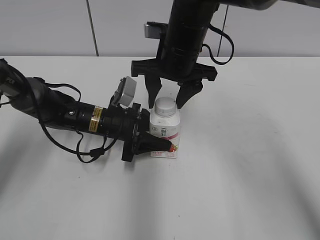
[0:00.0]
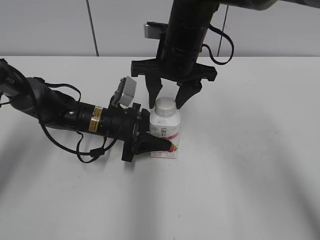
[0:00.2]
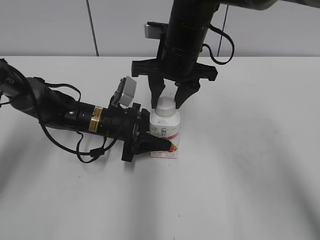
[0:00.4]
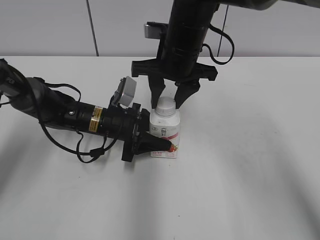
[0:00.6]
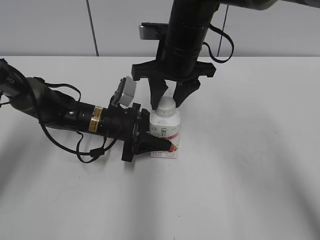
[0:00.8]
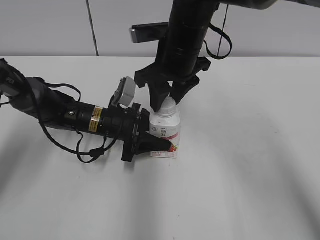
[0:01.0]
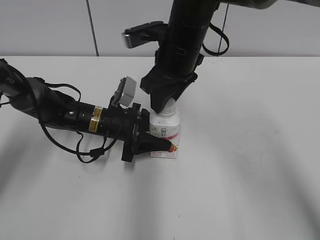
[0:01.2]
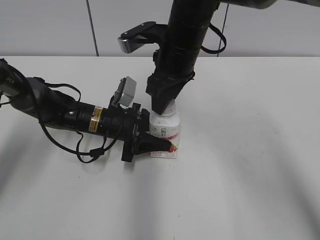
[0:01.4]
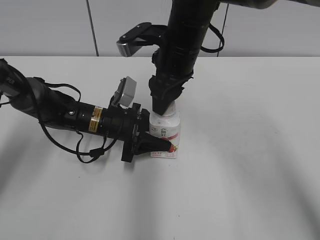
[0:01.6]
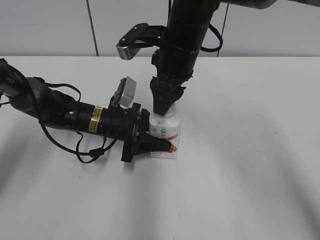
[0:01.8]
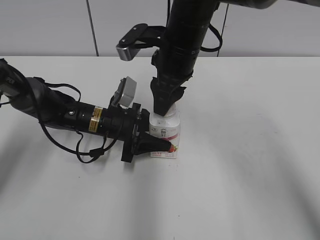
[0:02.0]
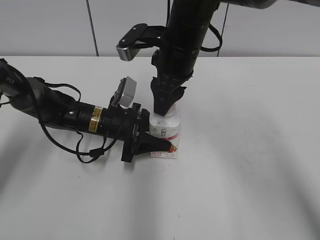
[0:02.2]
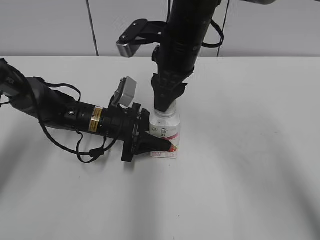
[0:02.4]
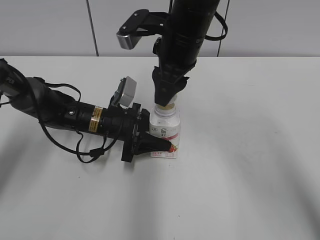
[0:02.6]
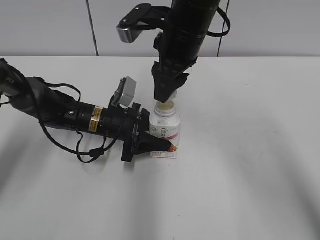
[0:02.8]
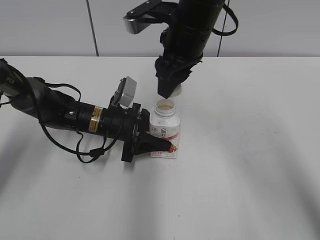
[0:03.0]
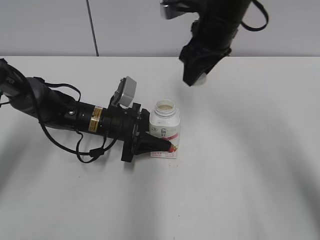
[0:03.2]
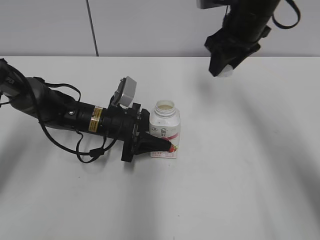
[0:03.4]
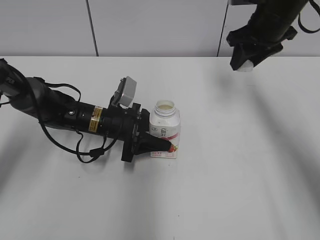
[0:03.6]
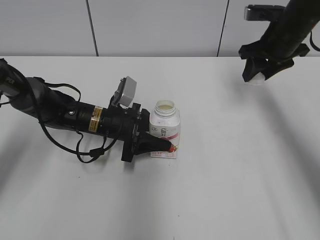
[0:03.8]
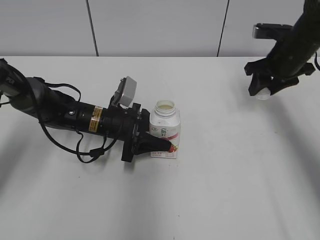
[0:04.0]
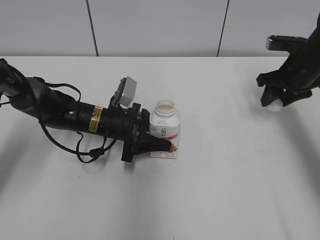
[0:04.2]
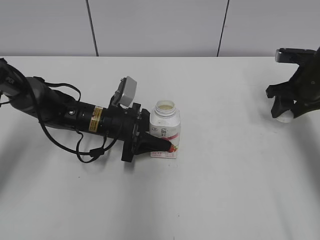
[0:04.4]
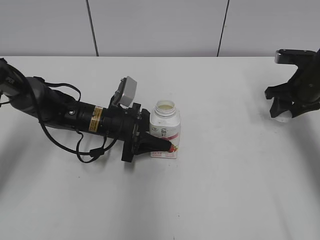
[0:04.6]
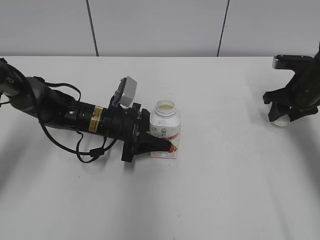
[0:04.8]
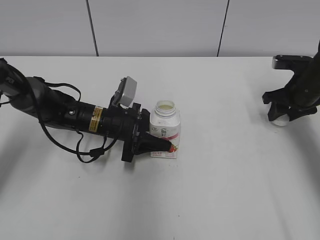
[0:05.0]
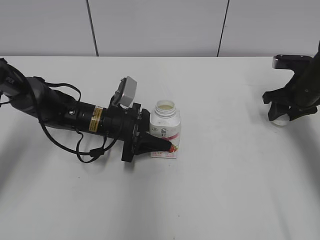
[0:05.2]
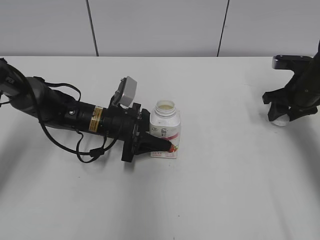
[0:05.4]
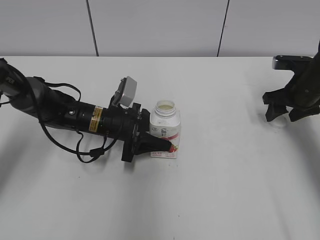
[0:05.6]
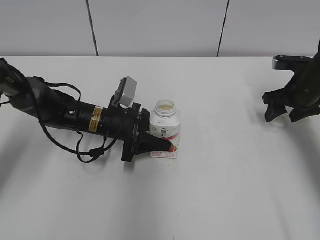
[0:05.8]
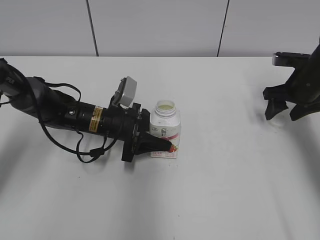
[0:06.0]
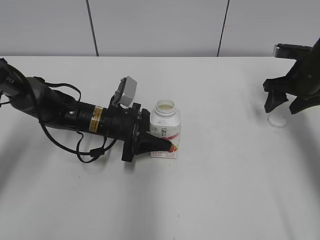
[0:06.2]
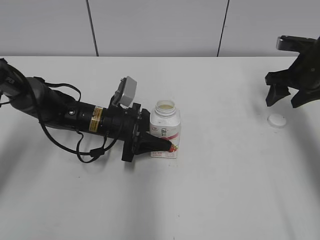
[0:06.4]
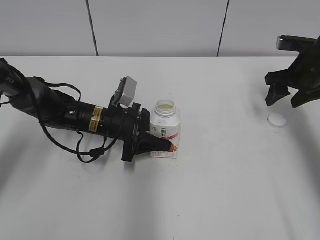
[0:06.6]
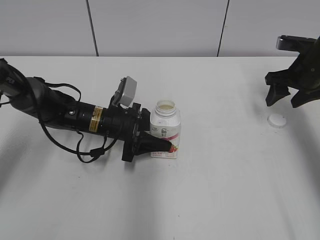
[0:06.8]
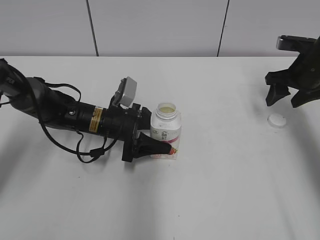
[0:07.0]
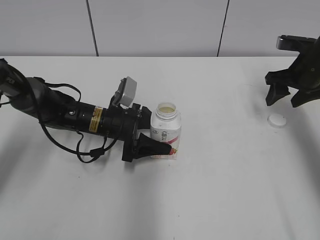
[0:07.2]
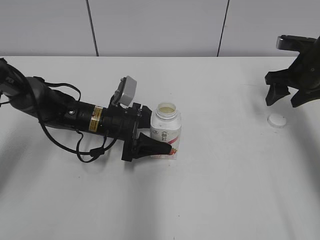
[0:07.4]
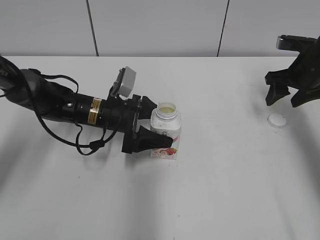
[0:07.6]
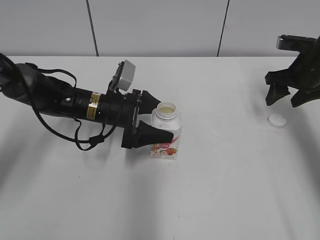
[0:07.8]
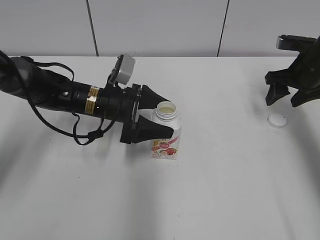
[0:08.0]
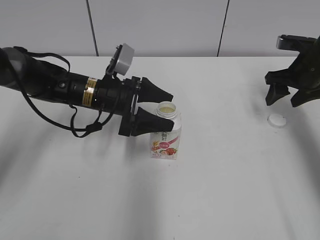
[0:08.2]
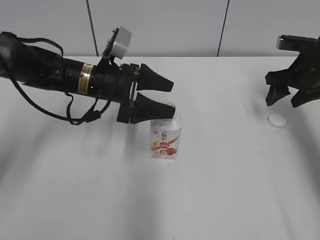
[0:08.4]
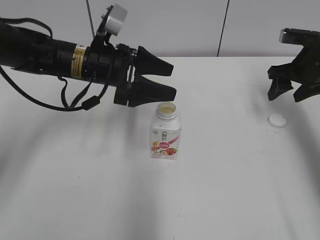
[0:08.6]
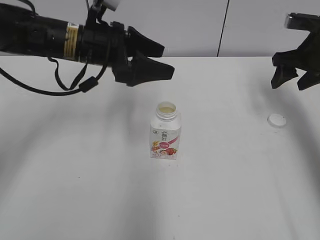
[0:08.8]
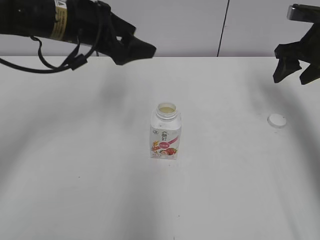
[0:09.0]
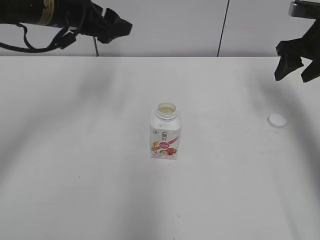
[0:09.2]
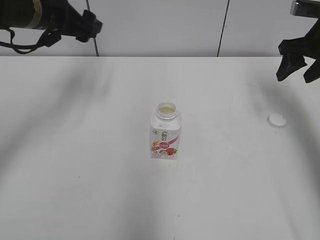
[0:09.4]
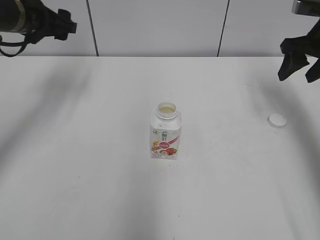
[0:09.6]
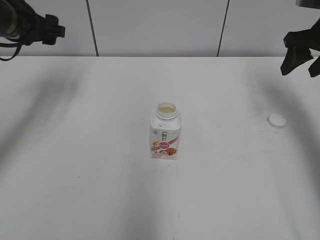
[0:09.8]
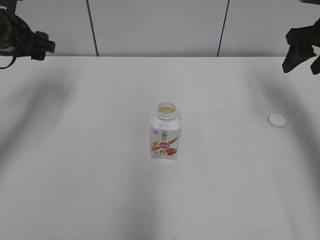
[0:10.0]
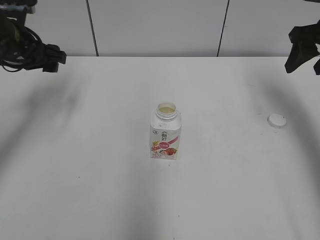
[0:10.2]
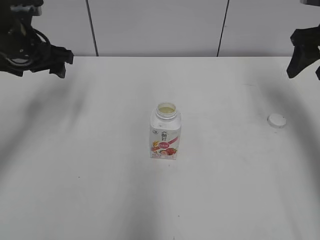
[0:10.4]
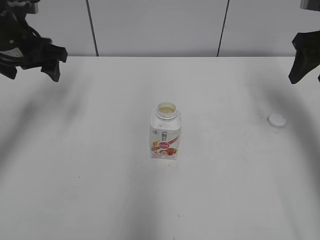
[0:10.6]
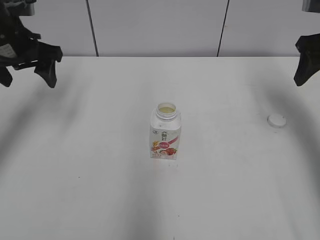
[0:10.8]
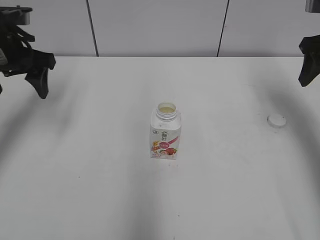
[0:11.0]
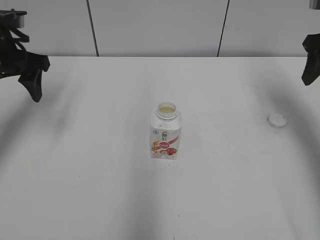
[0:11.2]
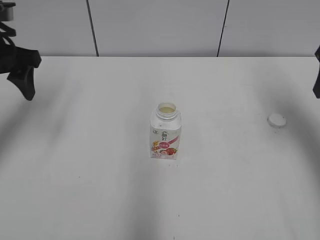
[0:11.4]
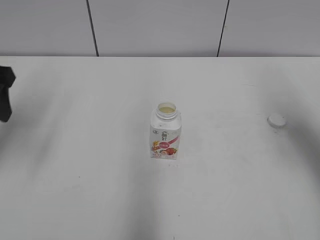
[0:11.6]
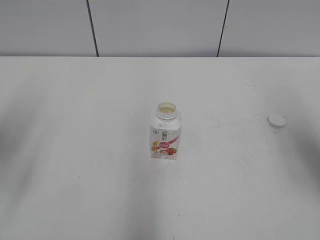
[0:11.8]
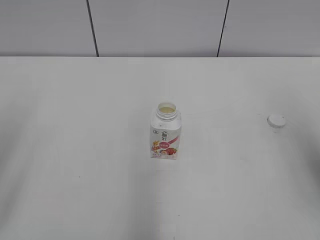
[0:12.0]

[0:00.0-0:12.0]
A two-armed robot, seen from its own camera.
Step, 0:03.0 to 0:05.8: Place the bottle cap on the right.
0:00.0 to 0:01.6: The right gripper closes its fingers.
0:01.6 to 0:03.0: The grippers stay close to where they were, moving slightly.
0:03.0 to 0:04.4: The right gripper shifts some 25 cm to the right and downward.
0:04.4 to 0:06.0: The right gripper opens.
0:06.0 to 0:07.6: The left gripper opens its fingers.
0:07.6 to 0:09.0: The left gripper goes about 20 cm upward, while the right gripper heads upward, covering about 5 cm.
0:09.0 to 0:10.4: The right gripper moves about 5 cm. The left gripper heads to the left, covering about 10 cm.
0:10.4 to 0:12.0: Both grippers move backward, about 20 cm.

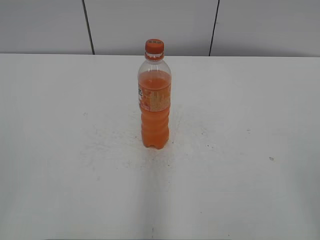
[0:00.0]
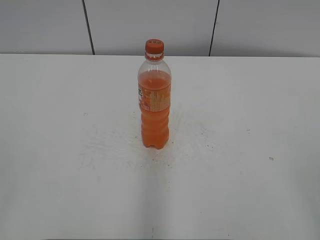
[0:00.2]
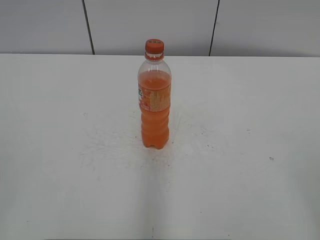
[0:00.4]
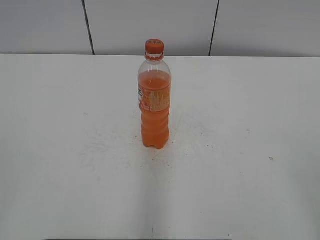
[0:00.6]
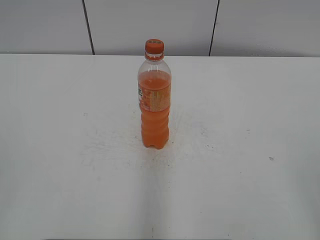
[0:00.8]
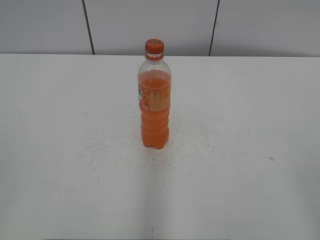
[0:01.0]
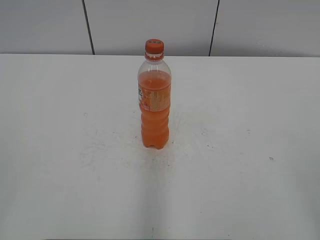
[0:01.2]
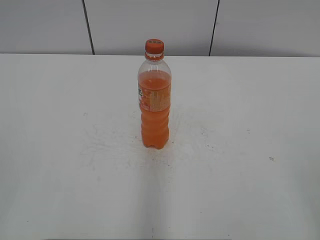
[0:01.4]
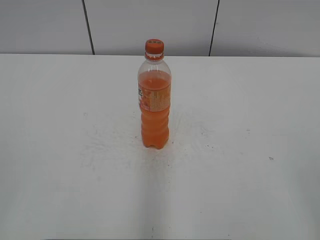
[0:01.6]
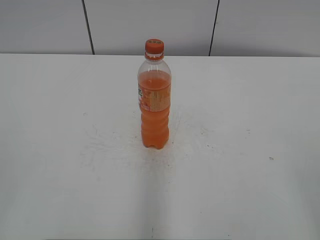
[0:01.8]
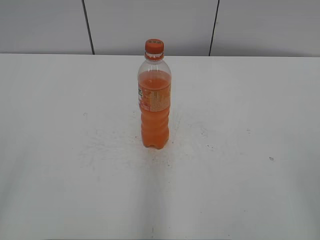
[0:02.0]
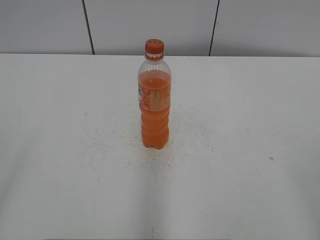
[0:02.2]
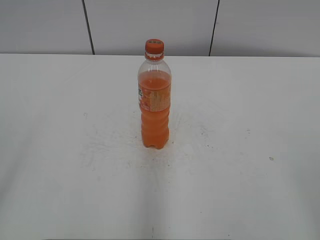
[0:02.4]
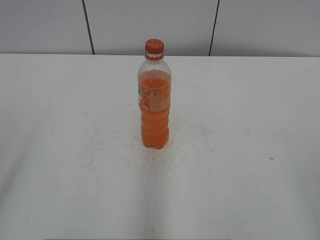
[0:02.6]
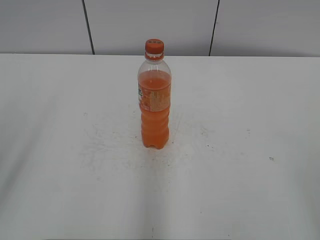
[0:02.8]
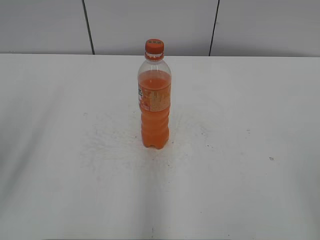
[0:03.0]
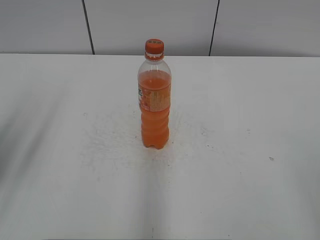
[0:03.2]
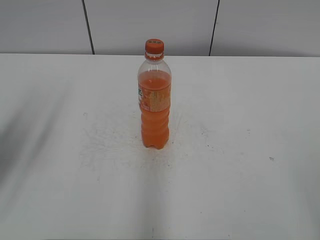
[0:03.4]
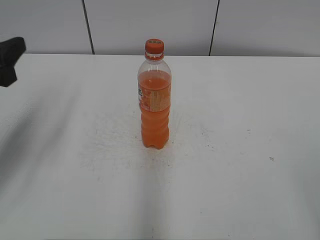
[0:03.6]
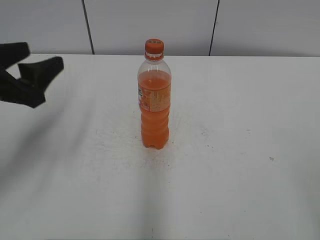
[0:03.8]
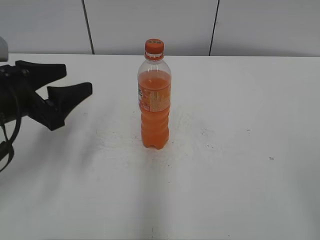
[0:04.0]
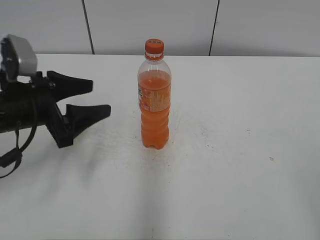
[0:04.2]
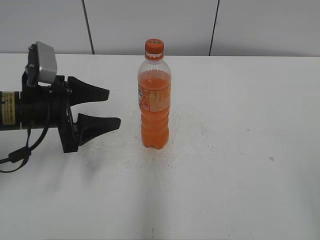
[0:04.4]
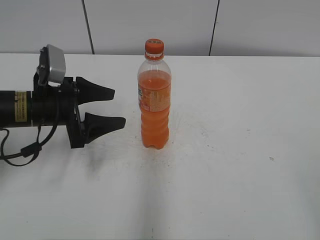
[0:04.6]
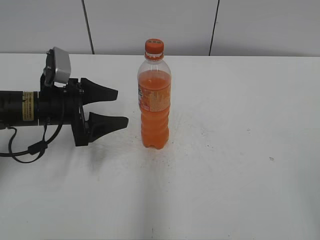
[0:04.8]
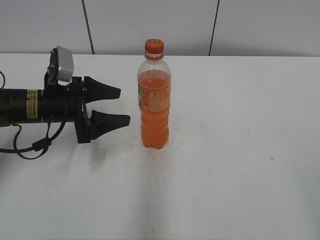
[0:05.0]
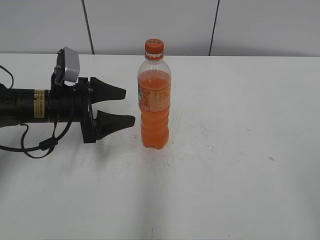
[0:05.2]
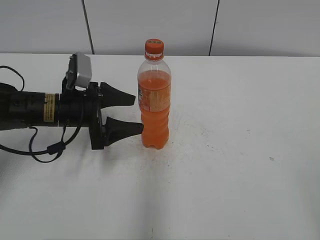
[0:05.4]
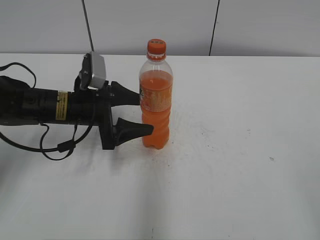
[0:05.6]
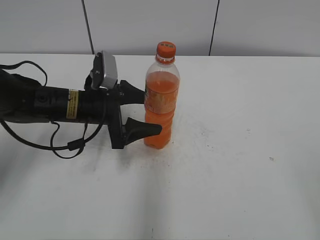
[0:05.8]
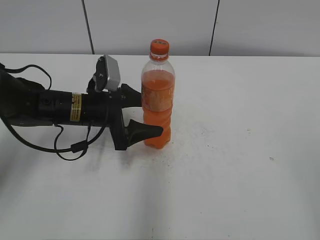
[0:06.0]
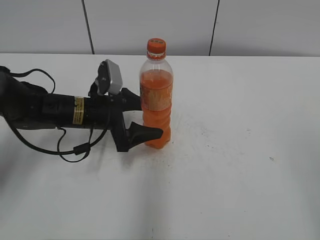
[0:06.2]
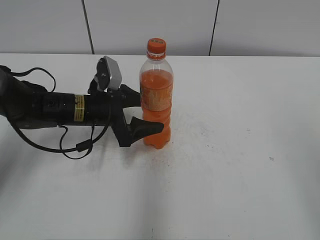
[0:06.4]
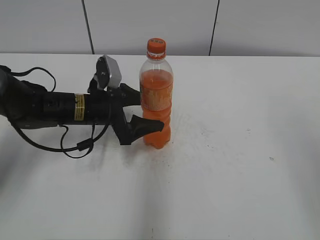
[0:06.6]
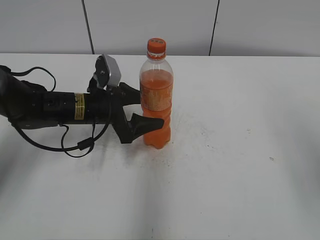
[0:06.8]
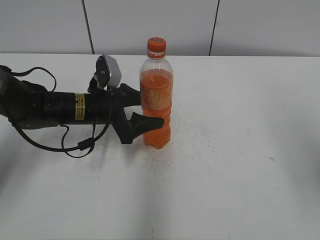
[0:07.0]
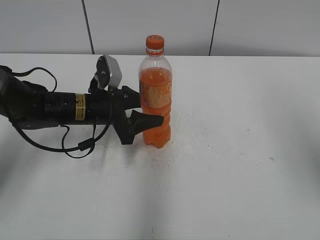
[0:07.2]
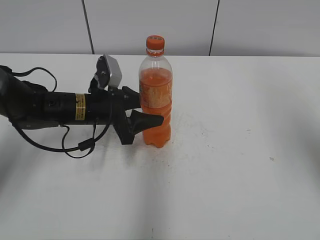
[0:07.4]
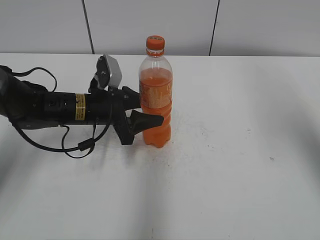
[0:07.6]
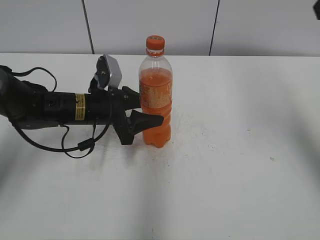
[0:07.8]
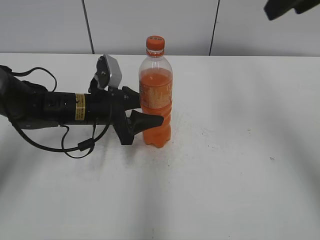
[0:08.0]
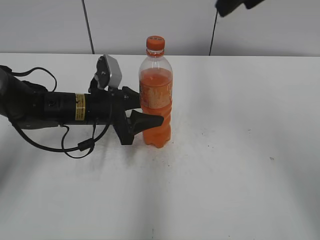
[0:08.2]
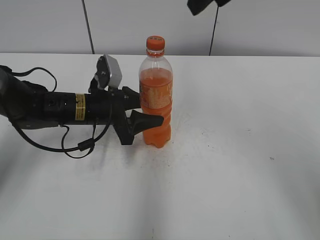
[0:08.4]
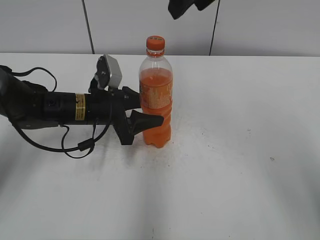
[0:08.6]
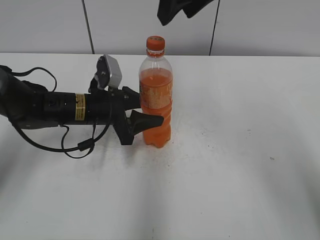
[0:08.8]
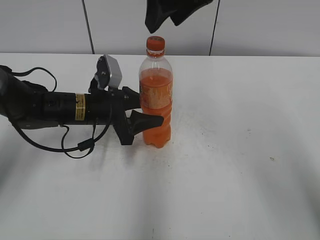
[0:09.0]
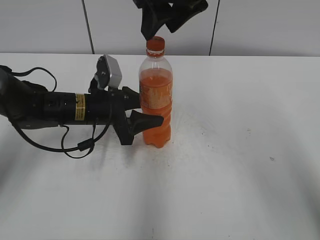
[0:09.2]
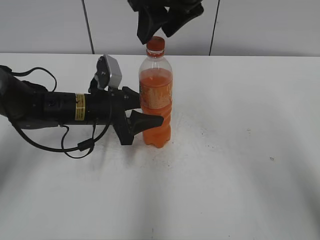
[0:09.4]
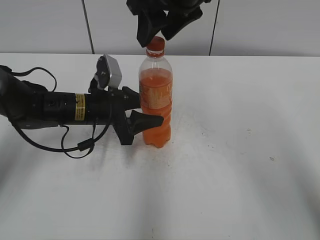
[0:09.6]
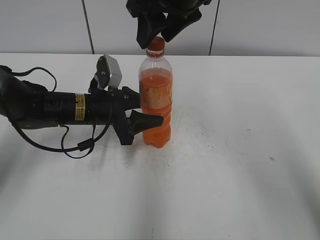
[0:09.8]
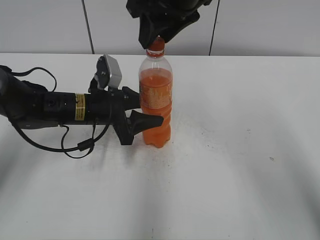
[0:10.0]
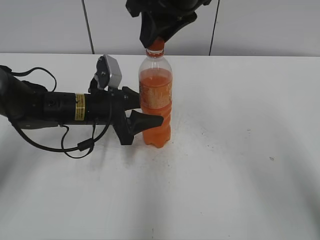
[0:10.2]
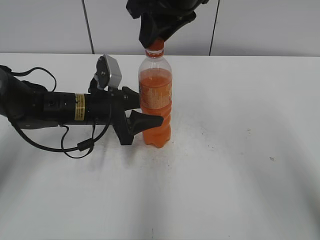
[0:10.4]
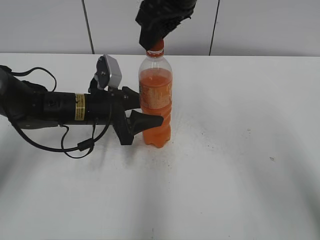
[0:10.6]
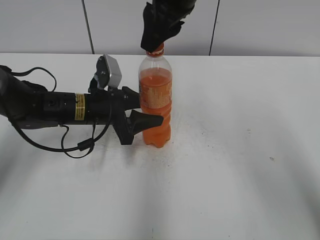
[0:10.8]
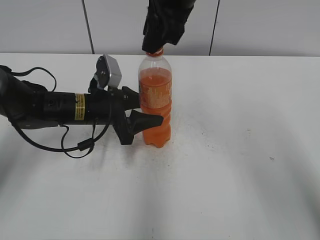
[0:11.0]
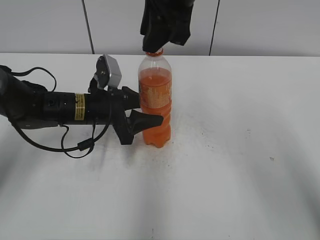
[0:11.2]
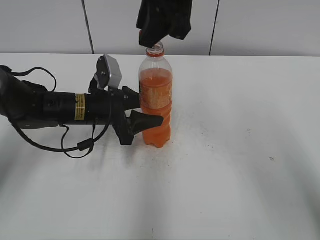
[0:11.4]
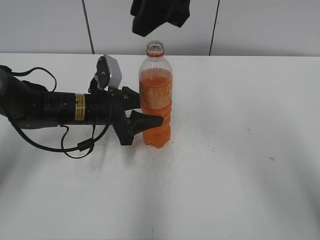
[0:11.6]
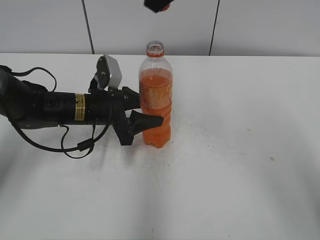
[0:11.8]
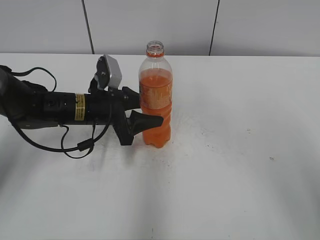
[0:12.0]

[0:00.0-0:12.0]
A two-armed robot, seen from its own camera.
Step, 0:00.0 to 0:07.6: Grab the Mirinda with the left hand.
0:03.0 to 0:04.4: The left gripper travels forward, downward and to the right by some 25 cm.
0:04.4 to 0:06.0: The left gripper shifts roughly 10 cm to the right and forward.
0:06.0 to 0:07.6: The left gripper closes, while the right gripper travels forward and upward by about 25 cm, and closes.
0:07.6 to 0:09.0: The right gripper shifts approximately 25 cm to the left and forward.
0:09.0 to 0:10.4: The right gripper closes its fingers.
0:10.4 to 0:12.0: The right gripper shifts some 10 cm upward.
